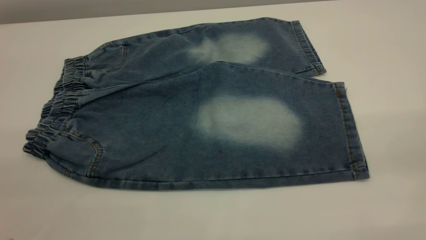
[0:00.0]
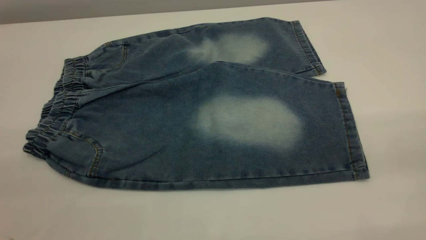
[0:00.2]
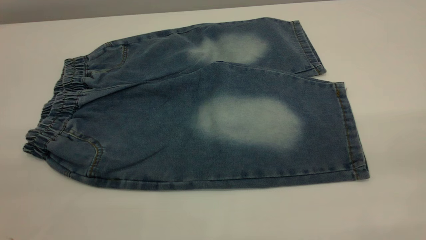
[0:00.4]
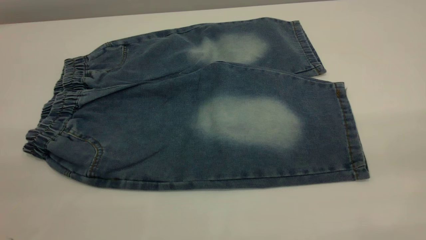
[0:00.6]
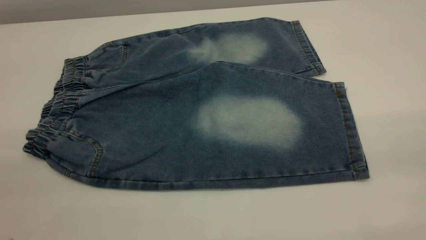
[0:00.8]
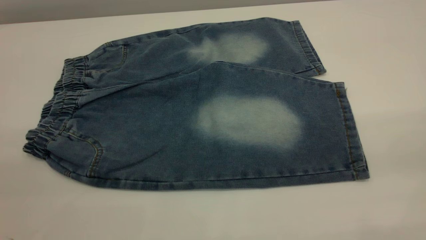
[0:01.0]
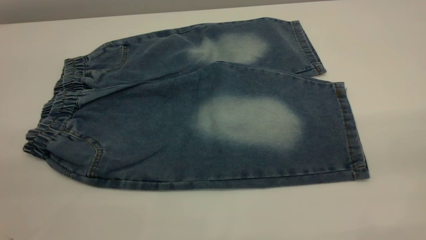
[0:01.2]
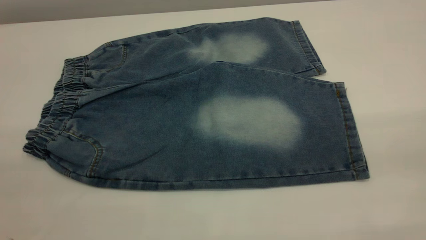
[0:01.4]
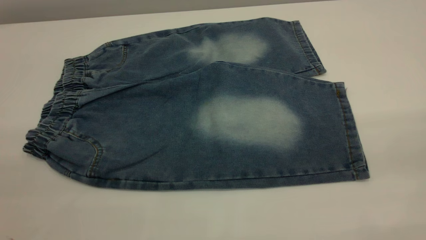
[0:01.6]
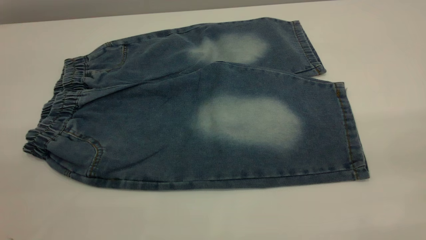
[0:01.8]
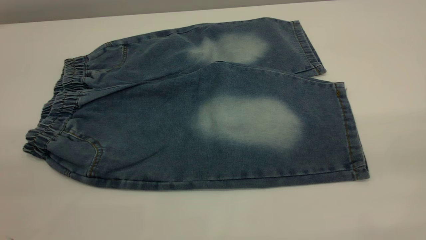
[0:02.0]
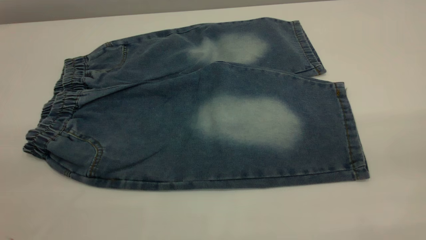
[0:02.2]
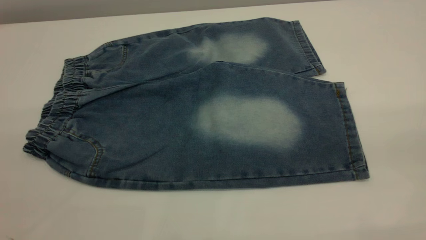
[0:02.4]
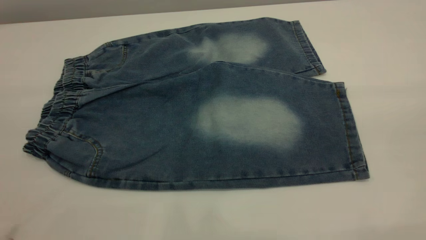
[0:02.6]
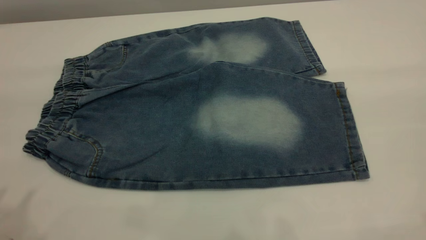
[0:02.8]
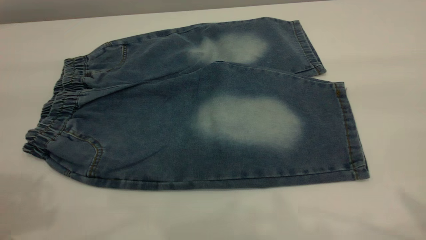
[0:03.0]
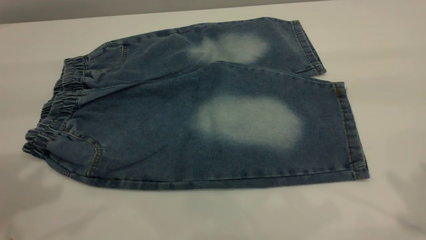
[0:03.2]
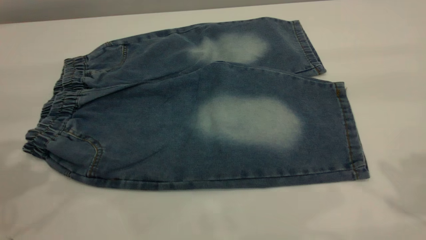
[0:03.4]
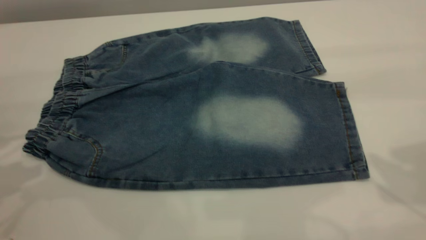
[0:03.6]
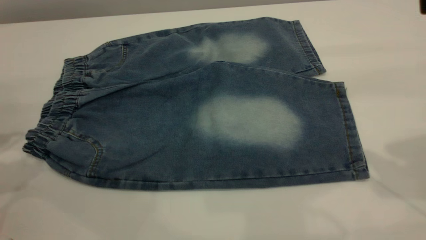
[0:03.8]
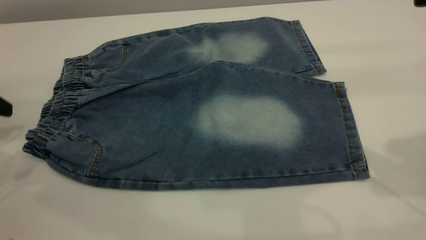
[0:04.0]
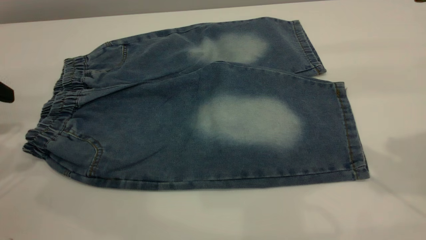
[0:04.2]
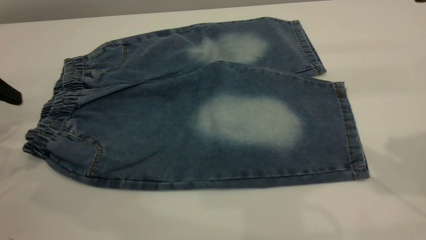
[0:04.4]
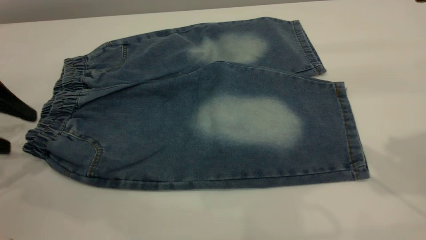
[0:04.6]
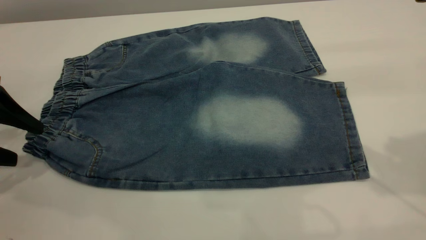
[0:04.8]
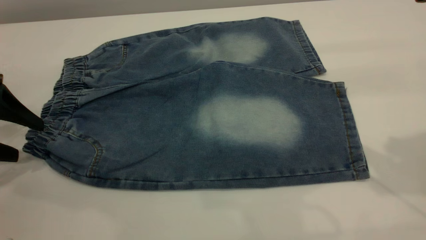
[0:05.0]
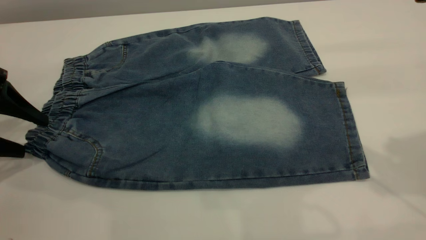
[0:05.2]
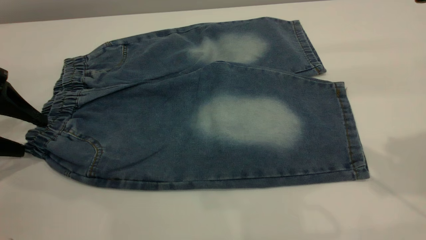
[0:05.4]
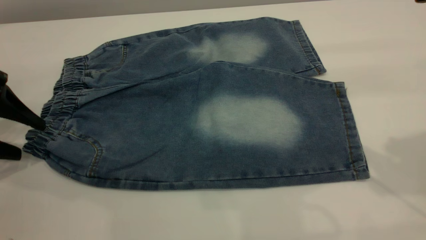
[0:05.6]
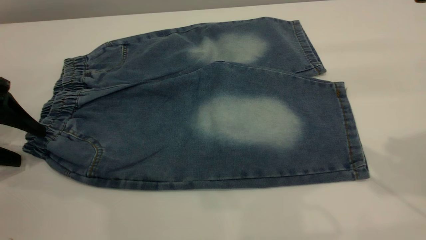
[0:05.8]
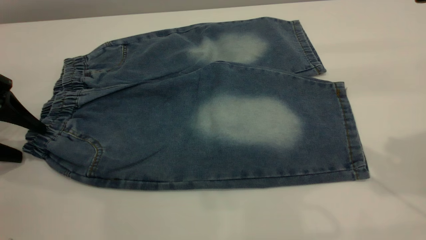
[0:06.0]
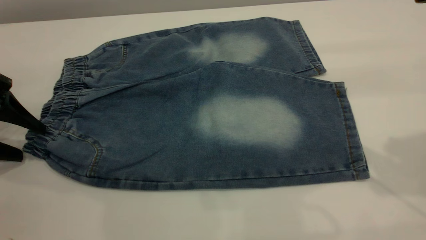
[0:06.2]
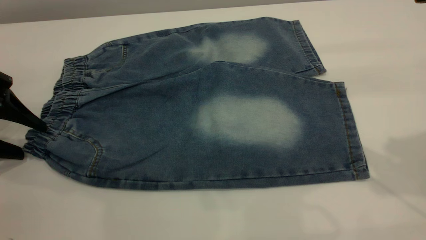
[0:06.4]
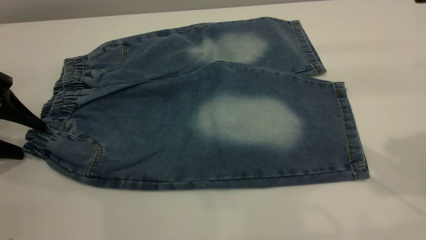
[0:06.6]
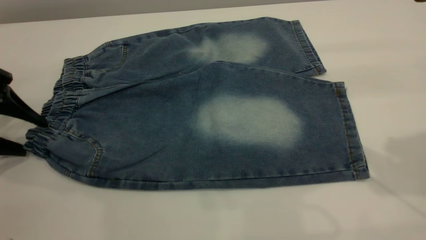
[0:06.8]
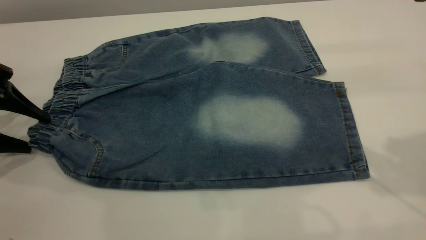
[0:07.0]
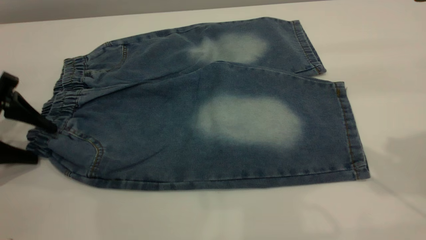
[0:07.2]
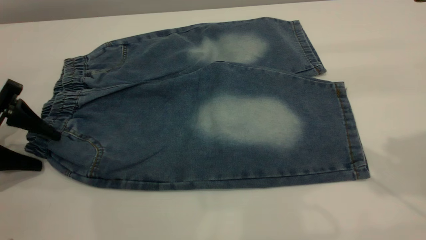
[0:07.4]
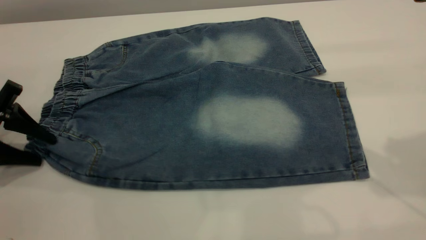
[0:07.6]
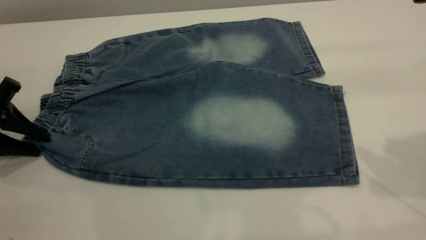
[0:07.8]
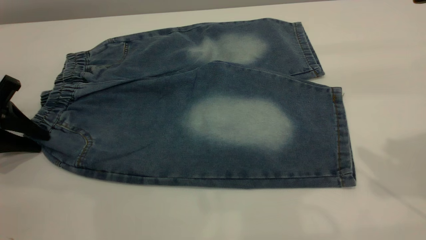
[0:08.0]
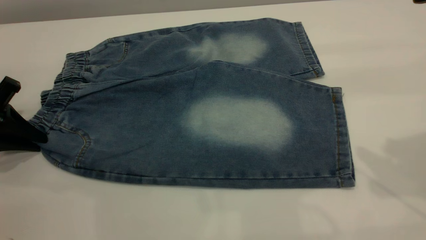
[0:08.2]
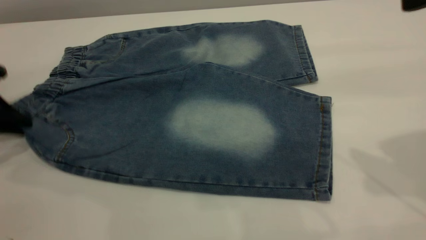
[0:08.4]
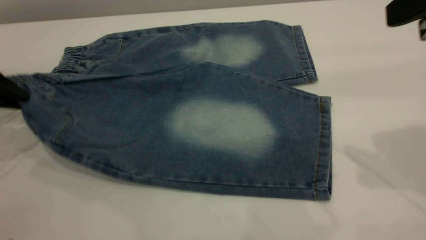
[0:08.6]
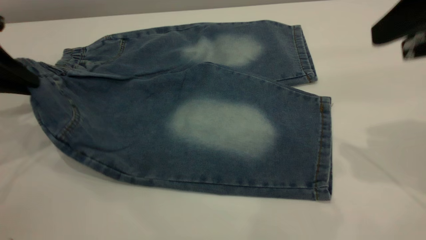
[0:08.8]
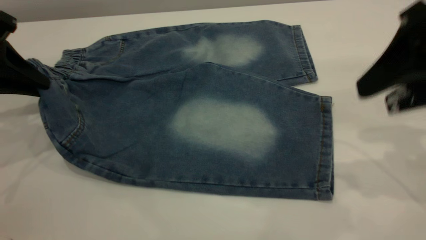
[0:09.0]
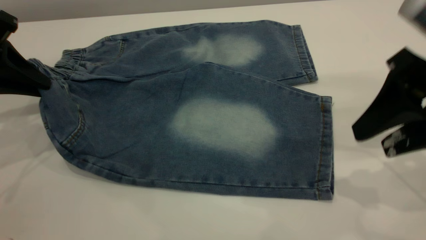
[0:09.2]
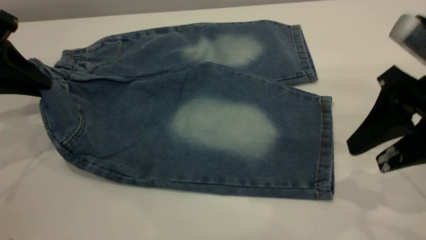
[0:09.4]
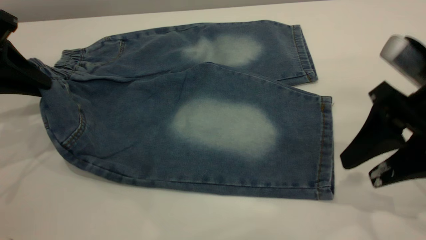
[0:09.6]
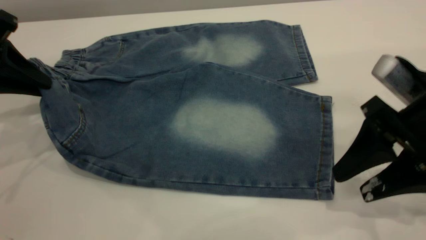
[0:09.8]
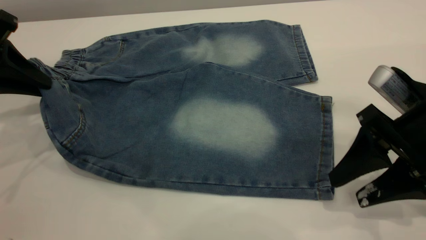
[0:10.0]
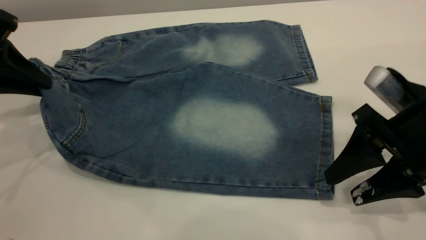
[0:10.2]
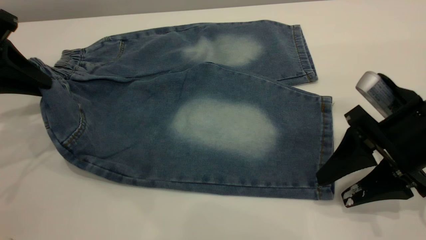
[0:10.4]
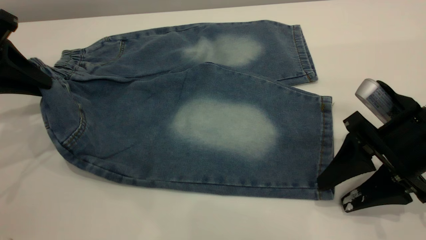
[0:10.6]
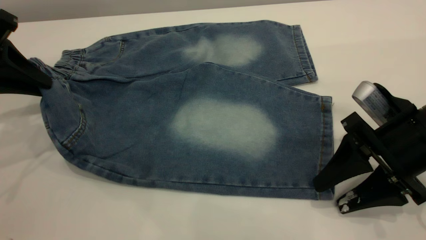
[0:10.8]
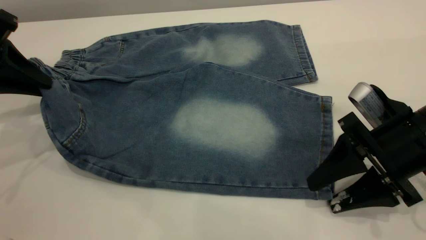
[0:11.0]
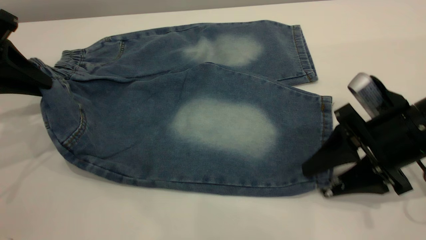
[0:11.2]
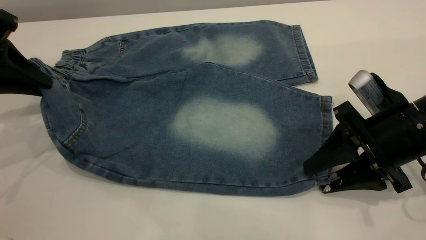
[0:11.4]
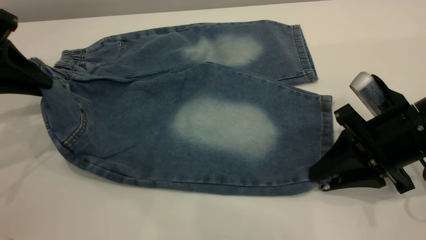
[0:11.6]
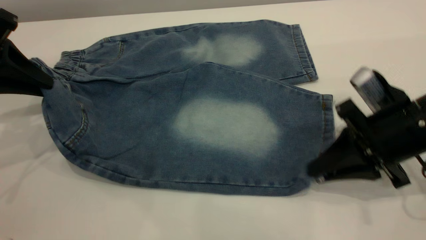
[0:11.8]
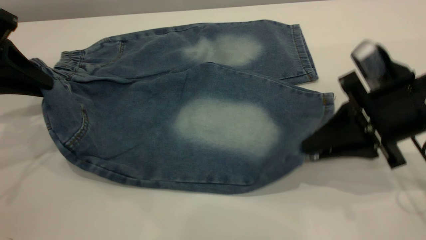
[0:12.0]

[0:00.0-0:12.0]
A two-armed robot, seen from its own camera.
0:00.0 to 0:01.6: Both grippers stay put.
0:03.0 to 0:04.4: The left gripper heads downward, forward and to the left, covering approximately 20 cm, and opens.
0:04.4 to 0:06.0: The left gripper moves downward, roughly 5 cm.
0:06.0 to 0:07.6: The left gripper closes up.
0:07.6 to 0:09.0: The left gripper heads upward, covering roughly 10 cm, and closes; the right gripper moves downward, approximately 10 cm.
0:09.0 to 0:10.4: The right gripper shifts roughly 10 cm downward.
0:10.4 to 0:12.0: The right gripper closes its fingers.

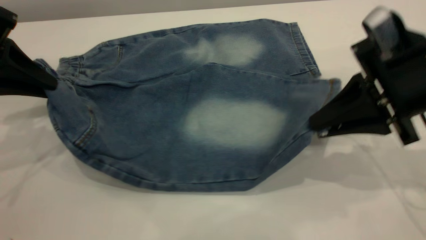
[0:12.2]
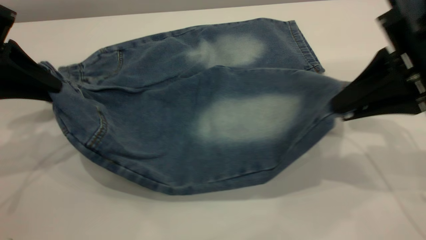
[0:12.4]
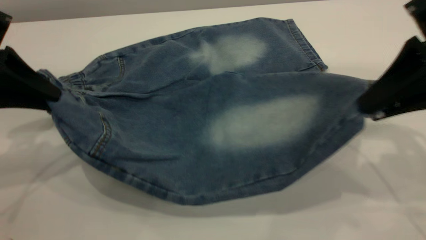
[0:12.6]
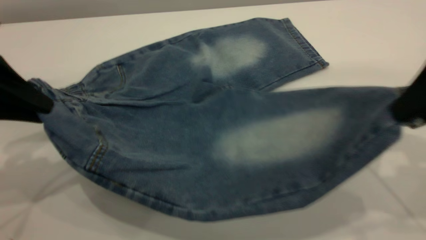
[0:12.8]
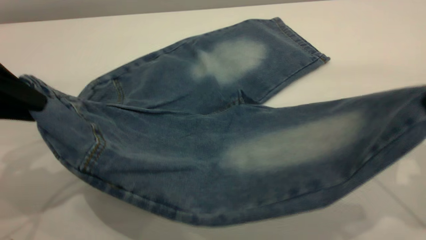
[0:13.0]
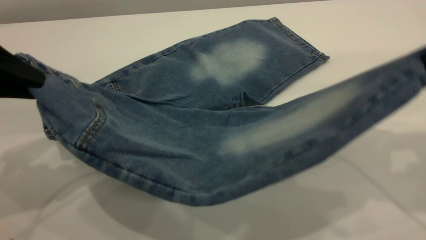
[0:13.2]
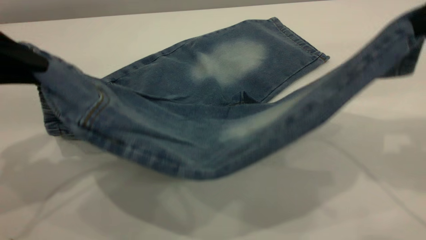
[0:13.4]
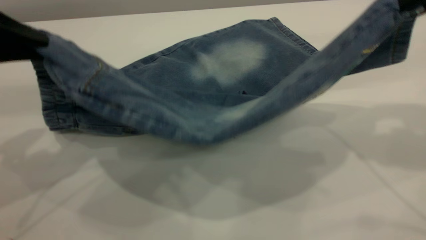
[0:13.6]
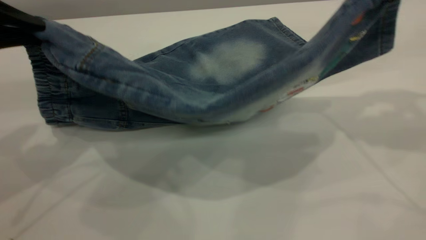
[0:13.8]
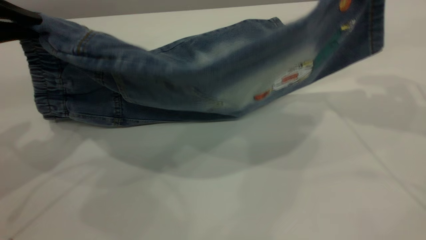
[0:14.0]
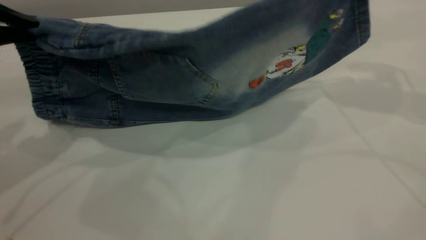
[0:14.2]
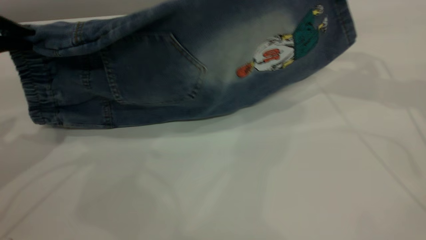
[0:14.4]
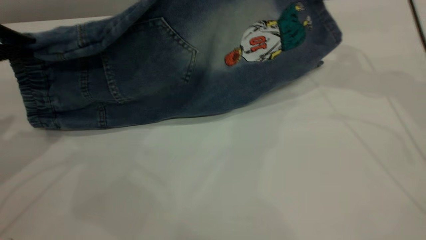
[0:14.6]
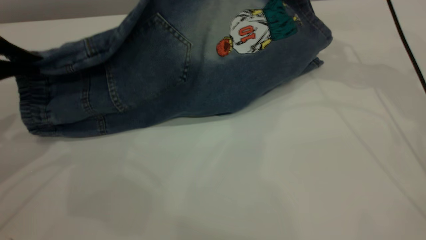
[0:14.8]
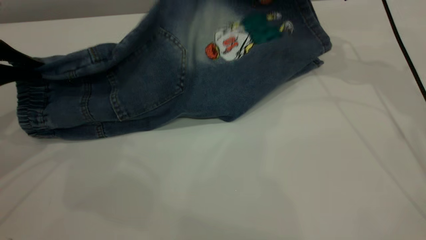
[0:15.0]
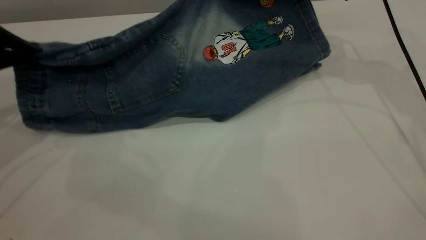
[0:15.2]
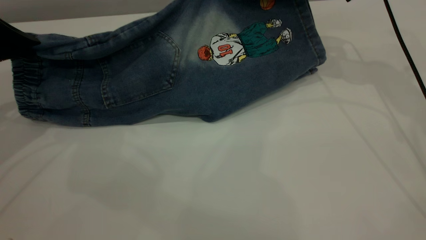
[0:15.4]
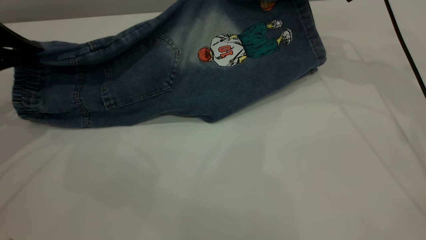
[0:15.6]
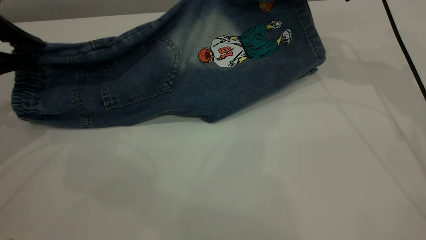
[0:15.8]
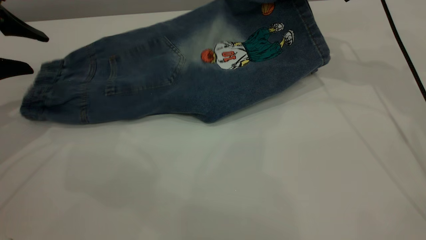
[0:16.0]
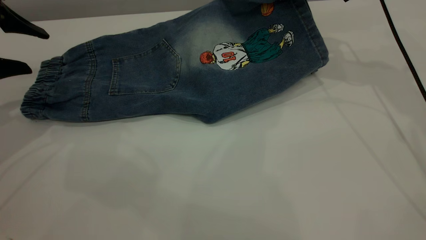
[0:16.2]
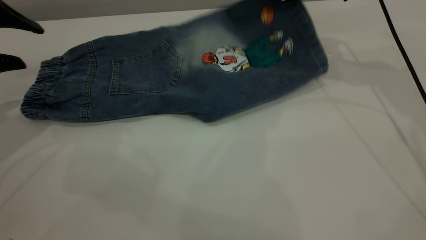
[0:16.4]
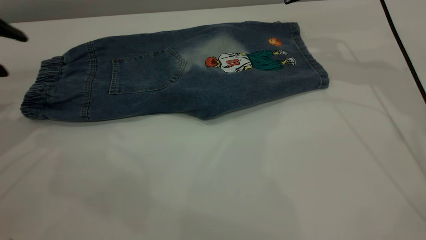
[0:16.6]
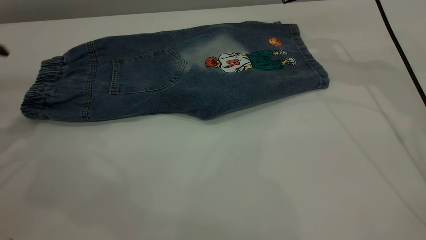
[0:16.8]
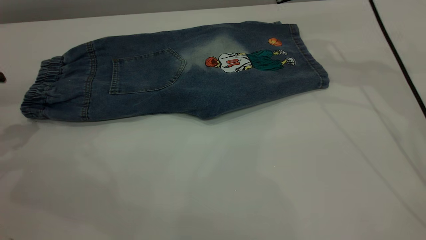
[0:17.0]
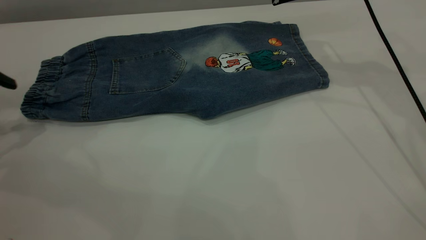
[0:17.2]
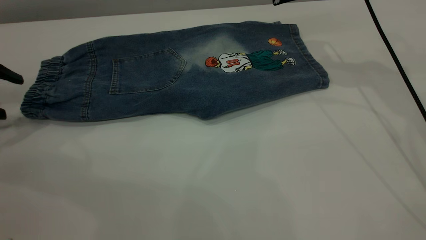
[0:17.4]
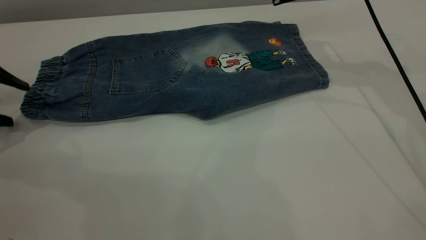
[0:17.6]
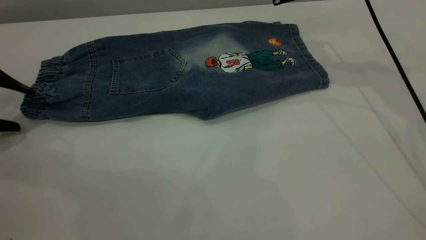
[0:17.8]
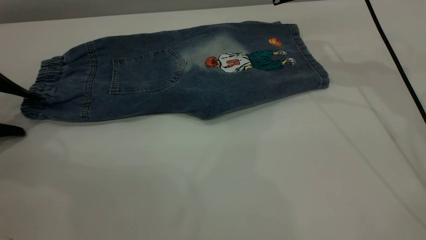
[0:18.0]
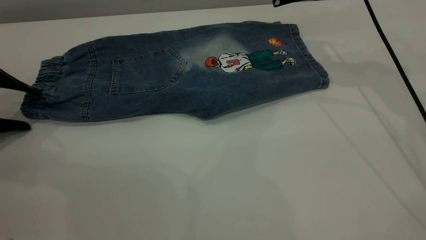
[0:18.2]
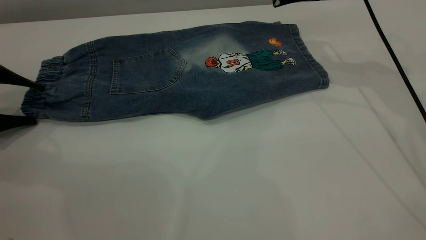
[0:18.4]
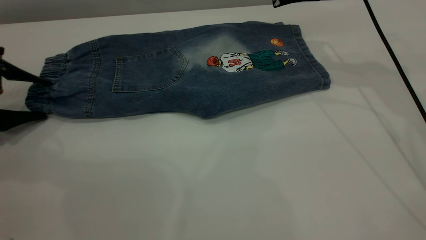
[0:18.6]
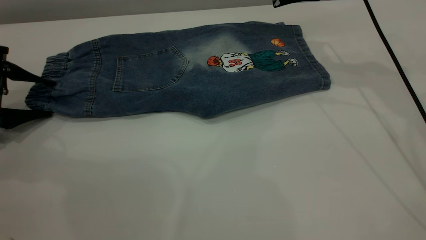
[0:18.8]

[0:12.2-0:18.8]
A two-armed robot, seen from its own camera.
Step, 0:12.2 to 0:16.4: Fold the bottom of the pants upward.
0:12.2 to 0:13.8: The right gripper goes about 15 cm upward; the left gripper is displaced upward by approximately 5 cm.
0:13.8 to 0:15.4: The left gripper is displaced forward and downward by some 10 cm, while the right gripper moves forward and downward, approximately 15 cm.
0:15.4 to 0:17.2: The right gripper opens up. The left gripper goes approximately 5 cm to the left, and opens its fingers.
0:17.2 to 0:18.8: The left gripper travels downward by about 10 cm.
